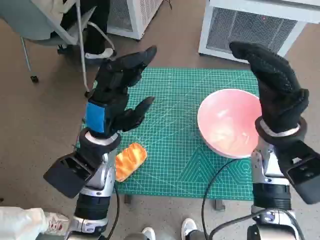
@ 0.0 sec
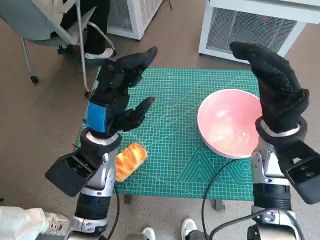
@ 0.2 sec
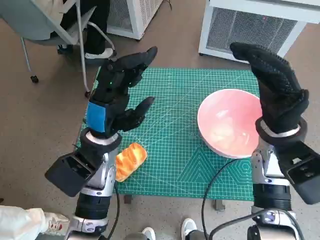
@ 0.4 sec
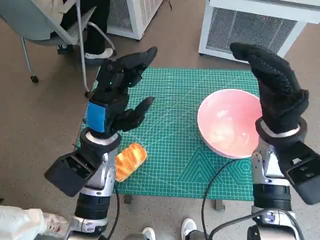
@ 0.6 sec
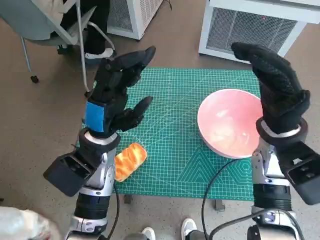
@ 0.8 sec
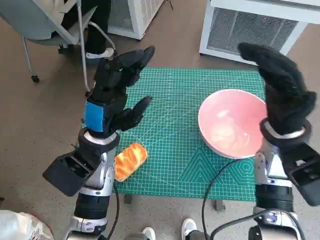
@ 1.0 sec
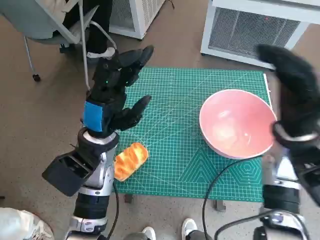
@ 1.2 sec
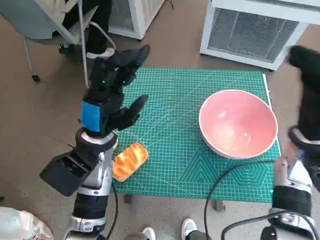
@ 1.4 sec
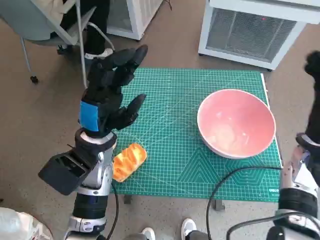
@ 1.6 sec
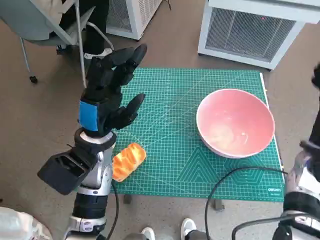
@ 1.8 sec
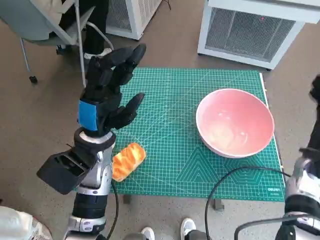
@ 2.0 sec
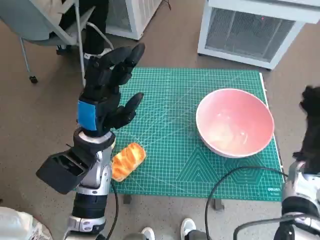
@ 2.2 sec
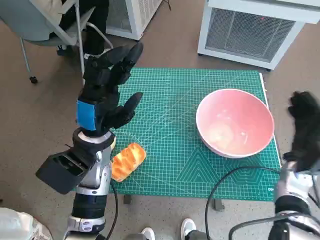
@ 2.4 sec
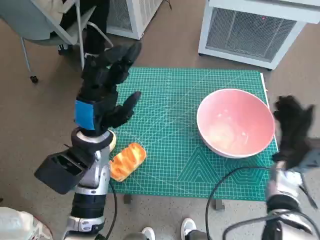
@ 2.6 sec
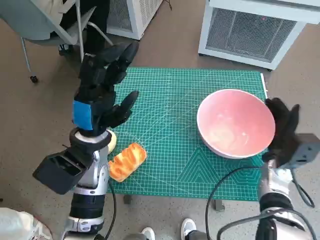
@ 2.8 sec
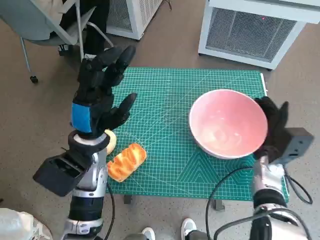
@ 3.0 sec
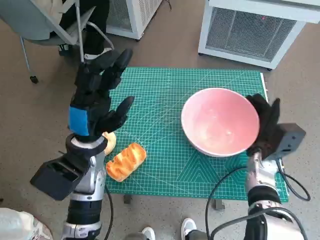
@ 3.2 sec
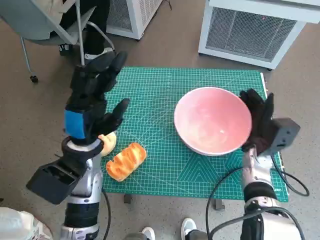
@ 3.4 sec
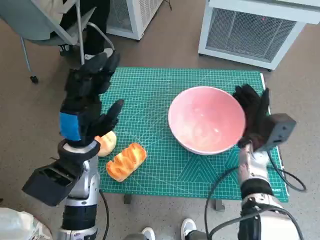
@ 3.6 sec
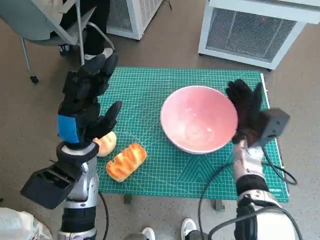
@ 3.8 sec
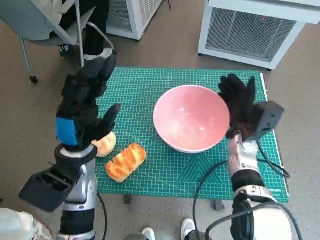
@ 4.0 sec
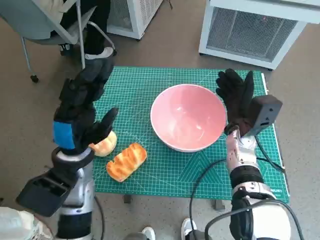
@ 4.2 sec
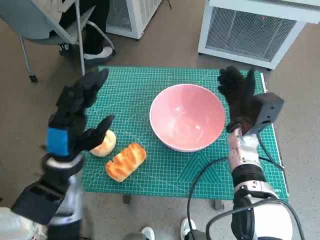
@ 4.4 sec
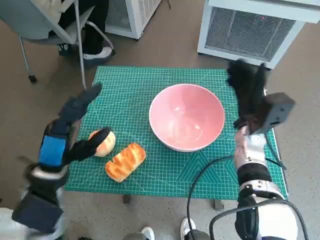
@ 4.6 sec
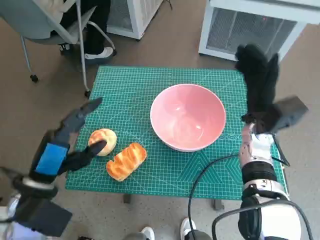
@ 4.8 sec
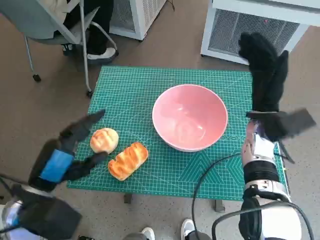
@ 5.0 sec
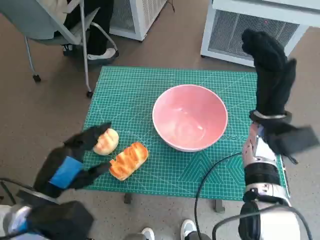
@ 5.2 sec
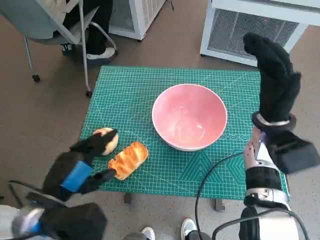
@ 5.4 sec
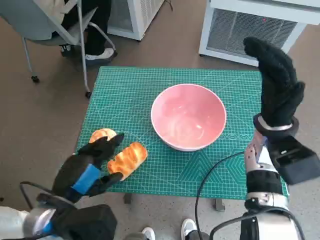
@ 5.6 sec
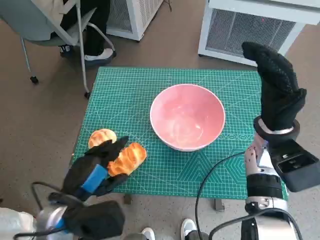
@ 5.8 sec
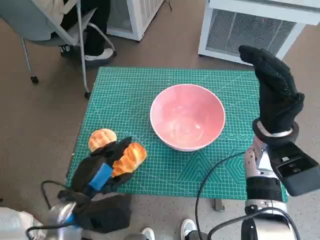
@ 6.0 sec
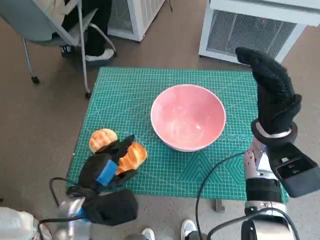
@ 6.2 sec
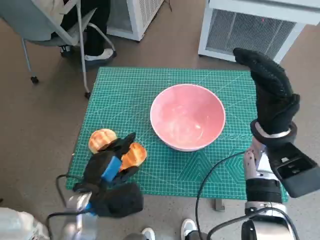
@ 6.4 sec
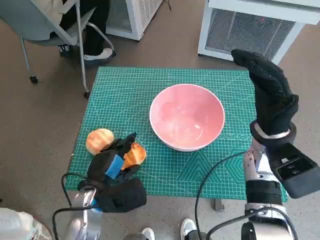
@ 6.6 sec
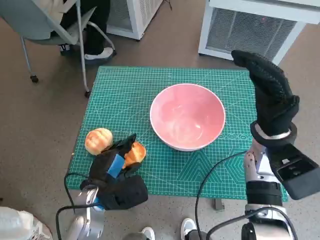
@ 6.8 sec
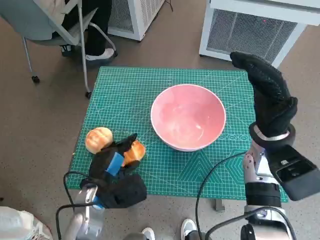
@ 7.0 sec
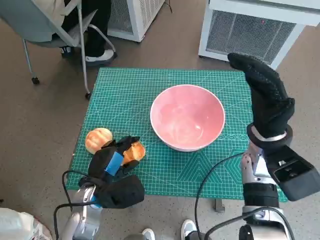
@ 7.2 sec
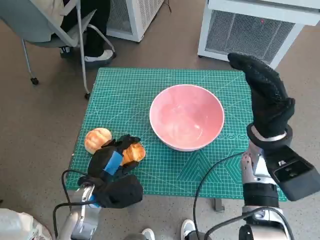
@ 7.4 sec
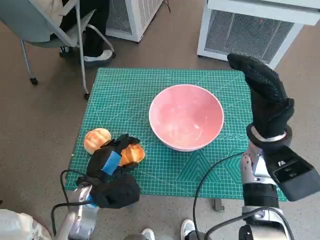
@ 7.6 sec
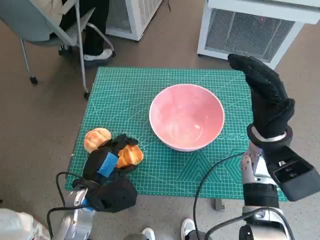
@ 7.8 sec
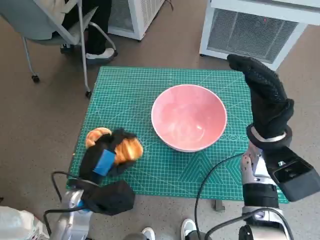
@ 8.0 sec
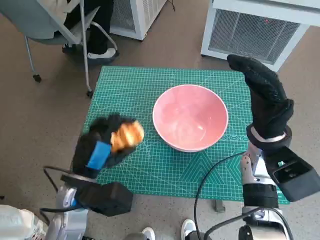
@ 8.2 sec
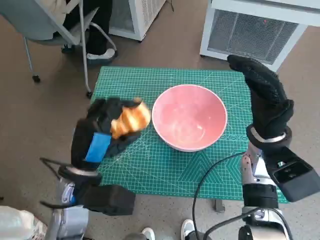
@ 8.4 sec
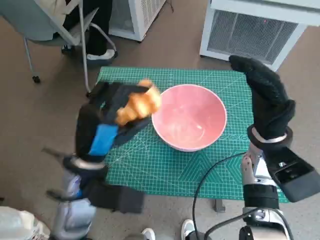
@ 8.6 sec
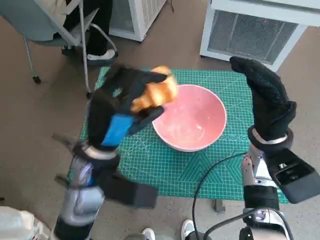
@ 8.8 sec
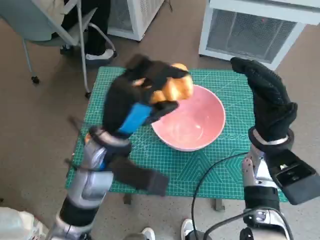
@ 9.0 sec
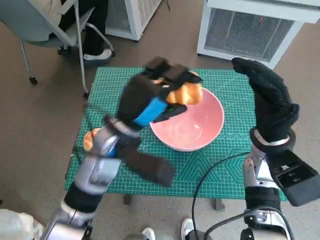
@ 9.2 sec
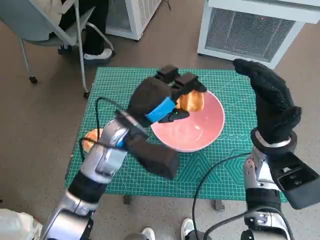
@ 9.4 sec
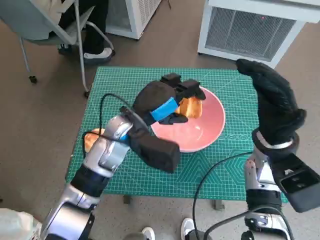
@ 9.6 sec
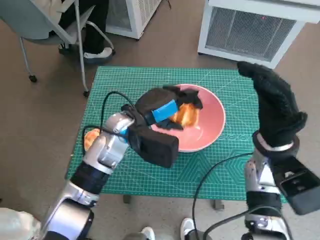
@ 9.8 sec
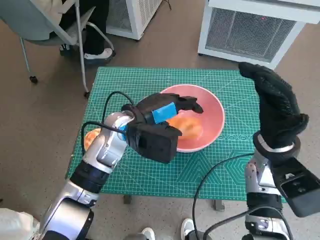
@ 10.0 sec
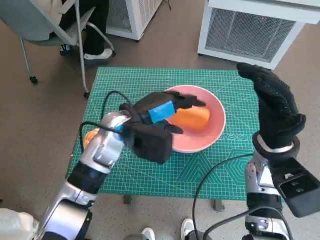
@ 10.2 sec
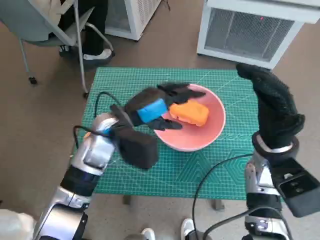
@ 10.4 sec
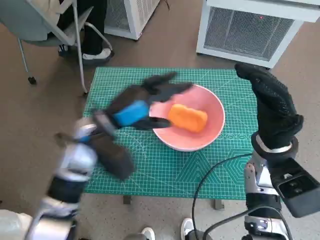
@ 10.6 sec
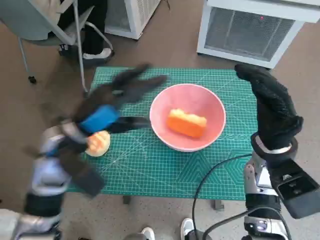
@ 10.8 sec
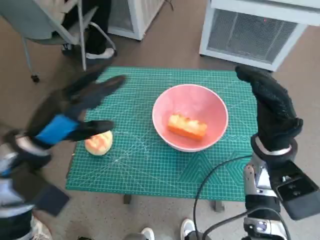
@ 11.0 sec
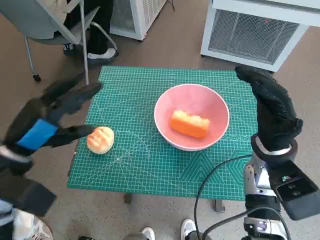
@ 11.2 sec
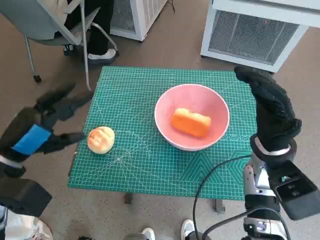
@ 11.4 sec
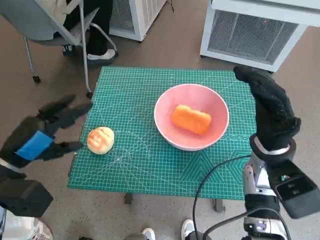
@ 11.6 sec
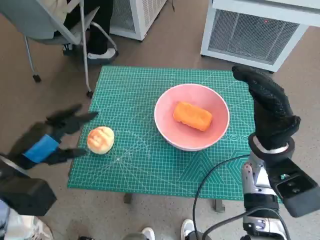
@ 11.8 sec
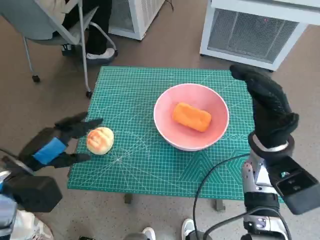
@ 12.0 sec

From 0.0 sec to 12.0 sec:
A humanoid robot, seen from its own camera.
Task of the whole recording: Push the bowl to the center of the table and put the bread into the bowl.
Step, from 0.0 sec to 4.4 sec: Move the pink bowl to the center of table with right hand.
Step, from 4.6 sec to 7.2 sec: Grasp the long bread with left hand.
Step, from 7.4 sec to 10.2 sec: Place the long bread in pink bowl with left hand.
From 1.6 sec to 3.0 sec: The right hand moves downward, approximately 10 cm.
From 3.0 sec to 4.4 sec: The left hand changes place by approximately 5 cm; the right hand moves to the left, about 5 cm.
From 4.4 sec to 6.0 sec: The left hand heads backward, covering approximately 5 cm. Meanwhile the right hand travels upward by roughly 5 cm.
From 6.0 sec to 7.6 sec: The left hand changes place by approximately 5 cm.
From 7.6 sec to 9.0 sec: The left hand goes roughly 15 cm upward and to the right.
From 9.0 sec to 10.4 sec: The left hand is displaced forward by approximately 5 cm.
From 10.4 sec to 12.0 sec: The left hand goes about 20 cm to the left and backward.

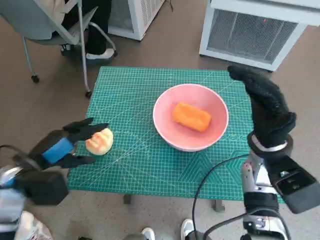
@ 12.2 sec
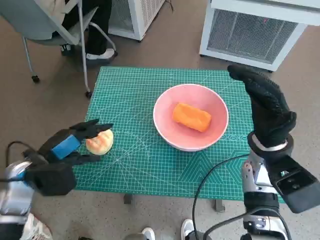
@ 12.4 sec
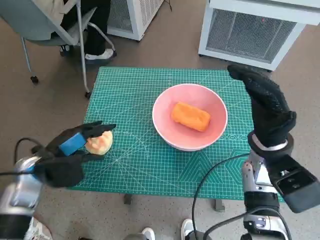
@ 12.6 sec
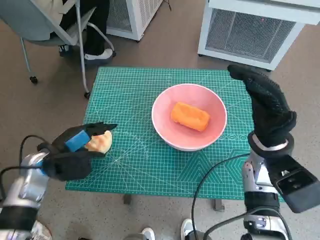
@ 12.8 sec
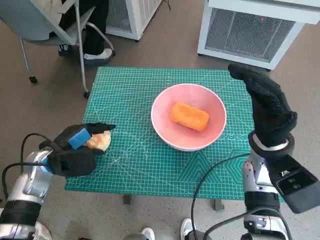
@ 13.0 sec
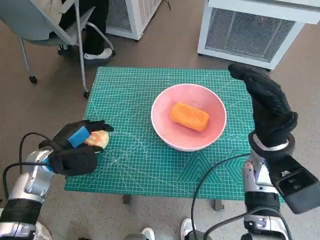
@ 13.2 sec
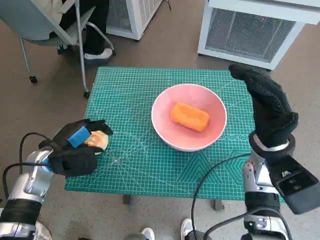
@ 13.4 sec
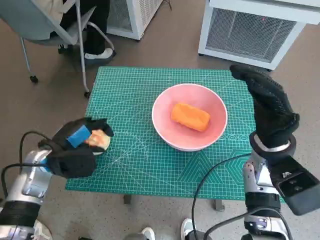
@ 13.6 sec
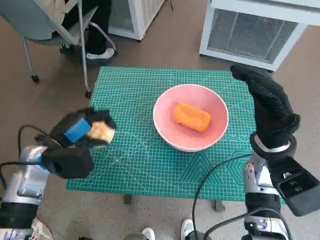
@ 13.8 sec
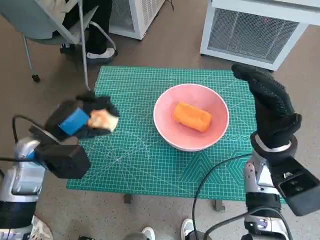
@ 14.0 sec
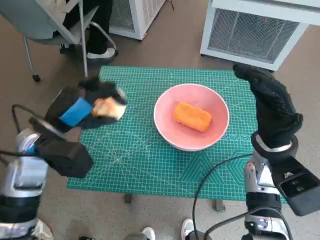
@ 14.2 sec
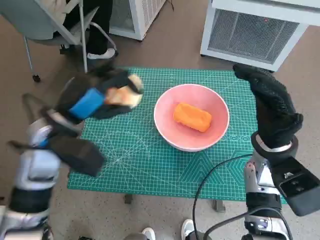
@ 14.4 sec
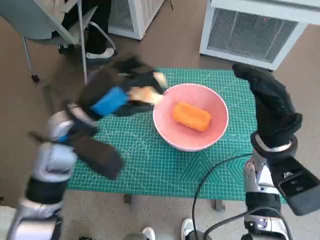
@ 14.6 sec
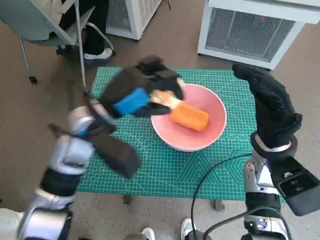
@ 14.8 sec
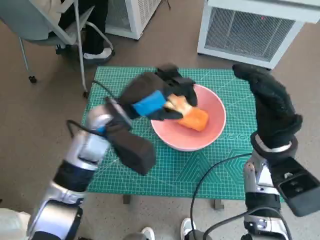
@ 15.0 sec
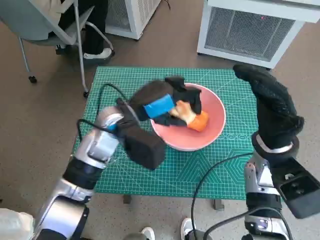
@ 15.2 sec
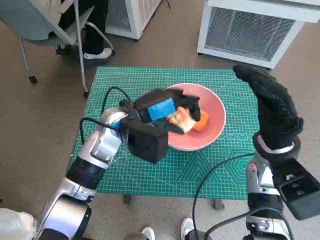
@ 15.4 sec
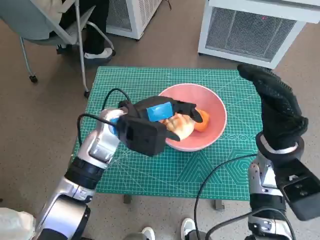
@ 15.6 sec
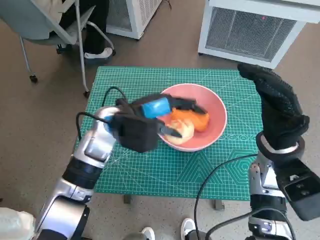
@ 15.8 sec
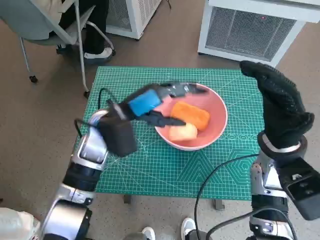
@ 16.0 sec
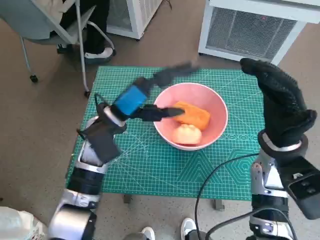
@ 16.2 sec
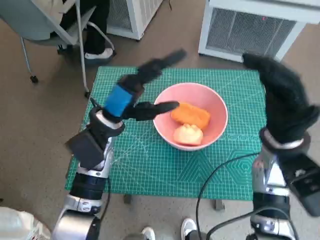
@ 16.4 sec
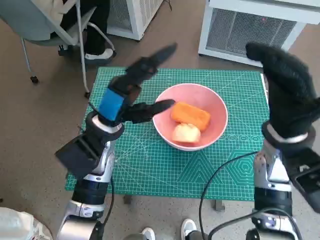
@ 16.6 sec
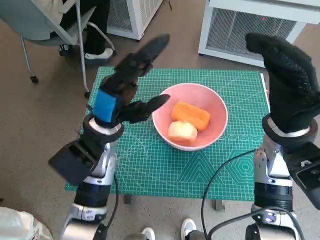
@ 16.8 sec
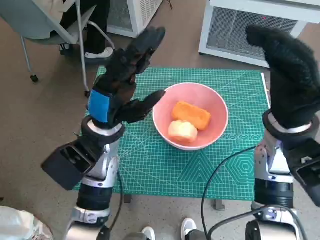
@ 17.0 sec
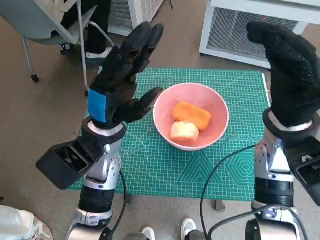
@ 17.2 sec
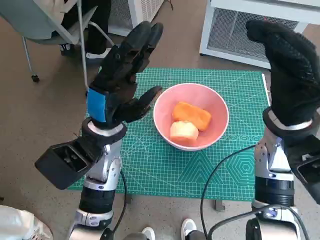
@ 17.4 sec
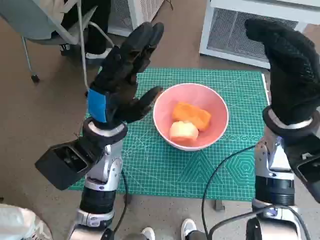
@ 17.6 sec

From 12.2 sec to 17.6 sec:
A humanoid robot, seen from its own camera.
Task of the whole recording: Push the bowl to the center of the table and put the bread into the bowl.
Step, from 13.4 sec to 16.0 sec: Place the round bread in pink bowl with left hand.
From 12.2 sec to 13.6 sec: The left hand heads forward, covering some 5 cm.
From 13.6 sec to 15.0 sec: The left hand shifts roughly 20 cm to the right and upward.
From 16.2 sec to 17.6 sec: The right hand changes place by approximately 5 cm.
